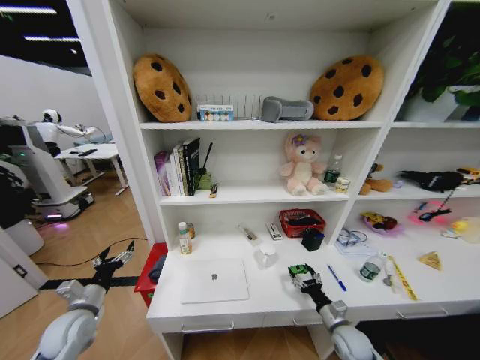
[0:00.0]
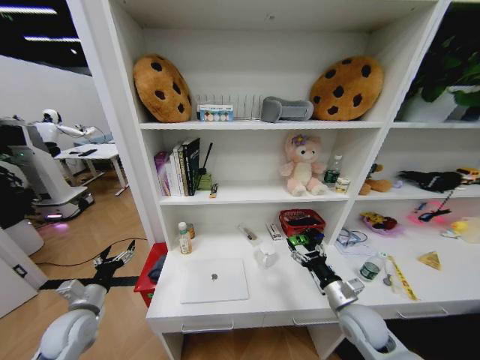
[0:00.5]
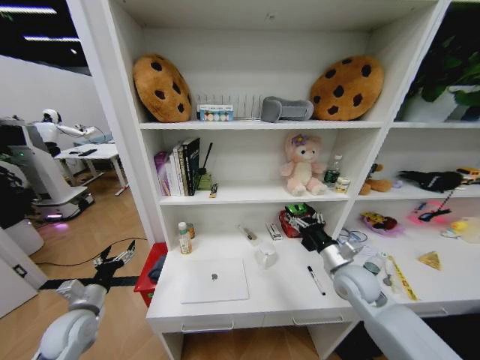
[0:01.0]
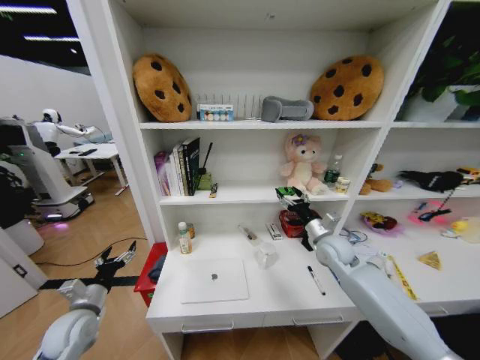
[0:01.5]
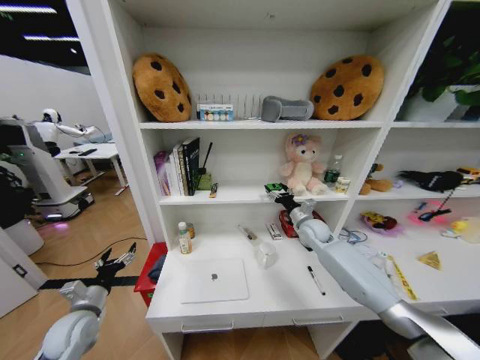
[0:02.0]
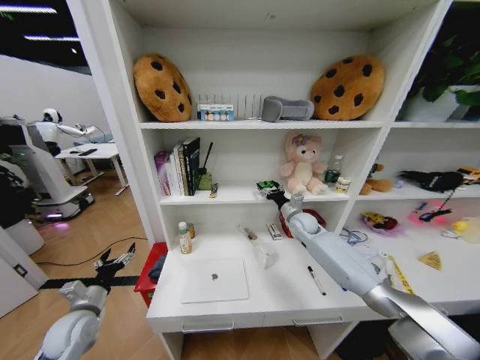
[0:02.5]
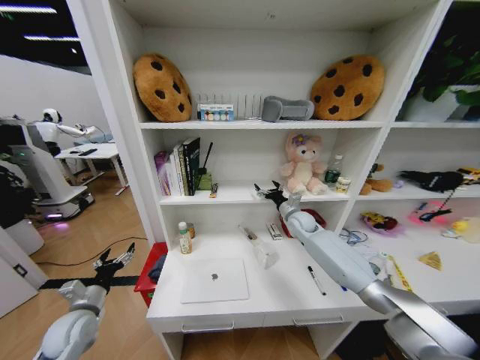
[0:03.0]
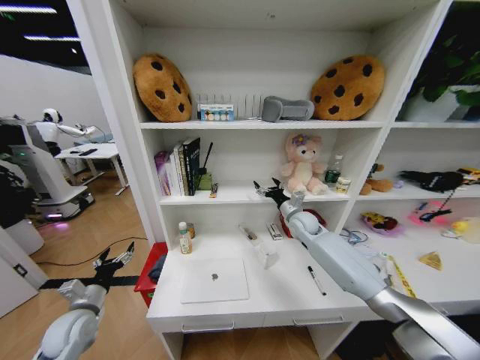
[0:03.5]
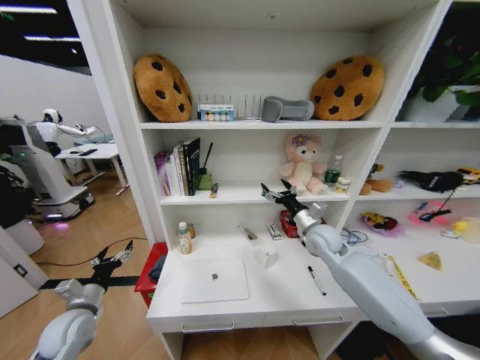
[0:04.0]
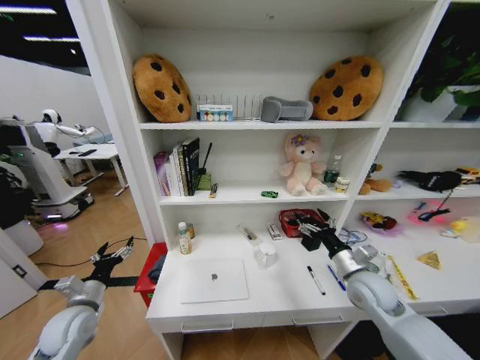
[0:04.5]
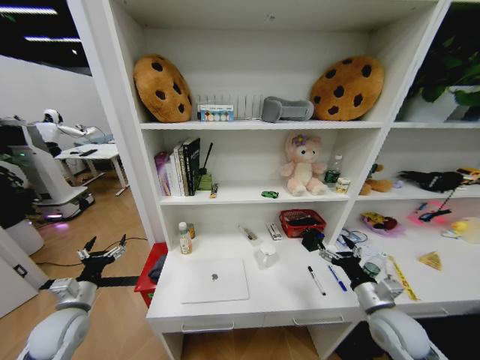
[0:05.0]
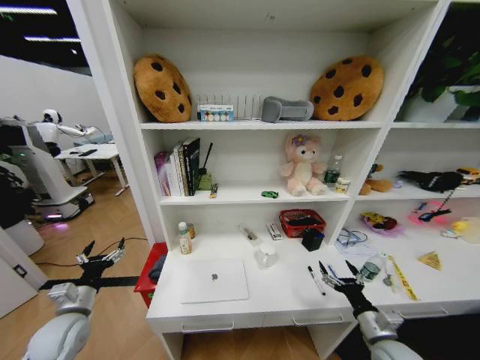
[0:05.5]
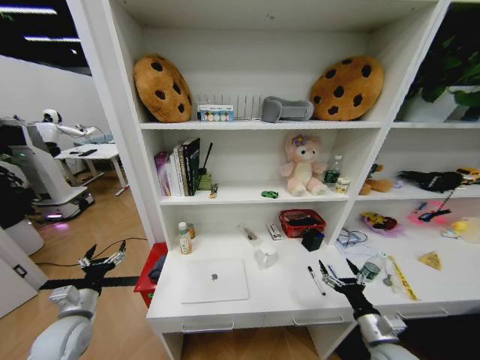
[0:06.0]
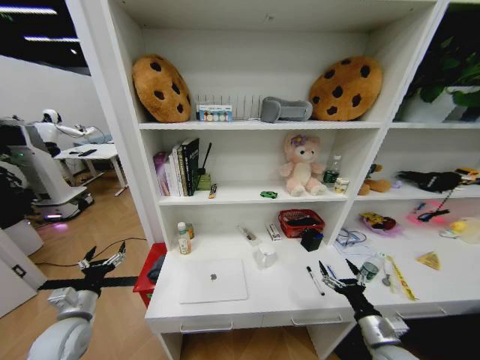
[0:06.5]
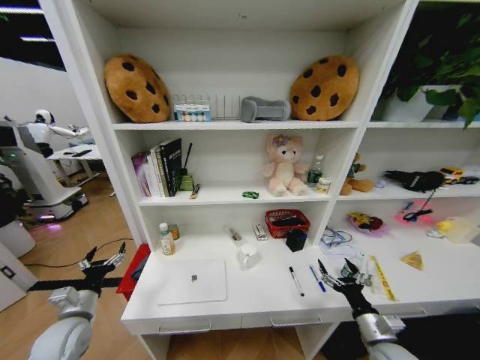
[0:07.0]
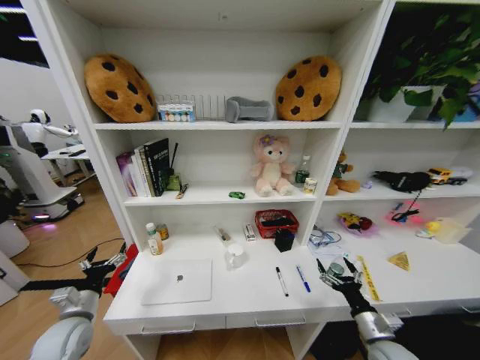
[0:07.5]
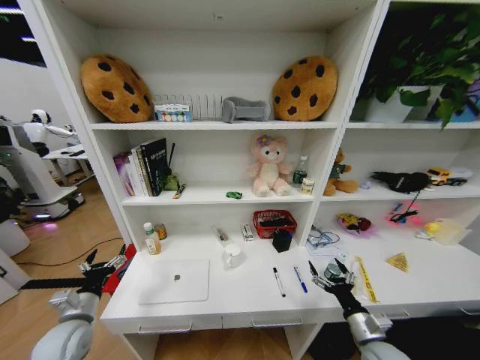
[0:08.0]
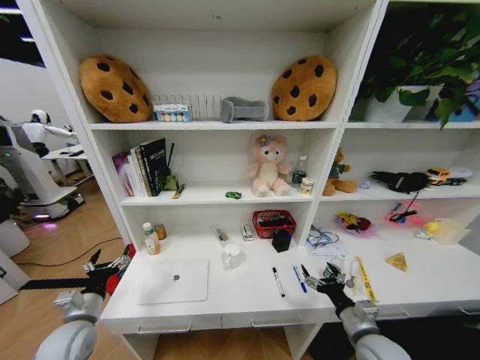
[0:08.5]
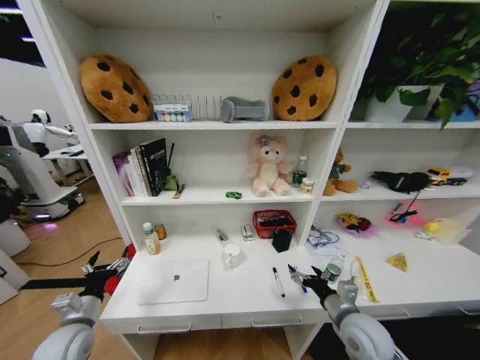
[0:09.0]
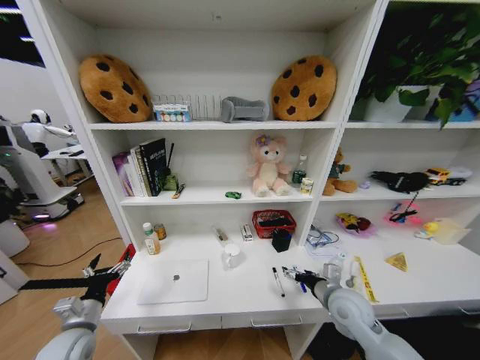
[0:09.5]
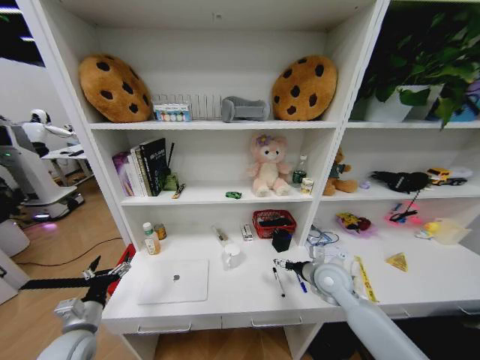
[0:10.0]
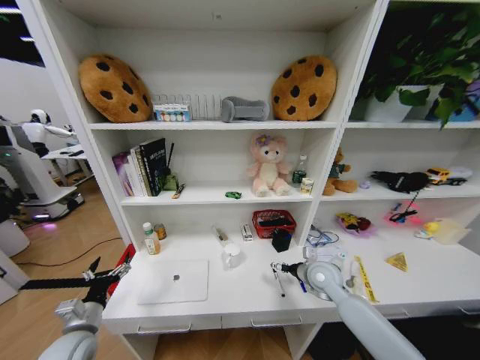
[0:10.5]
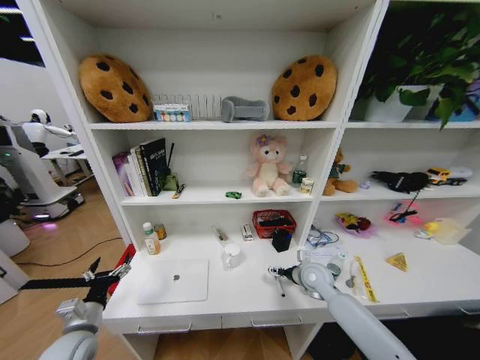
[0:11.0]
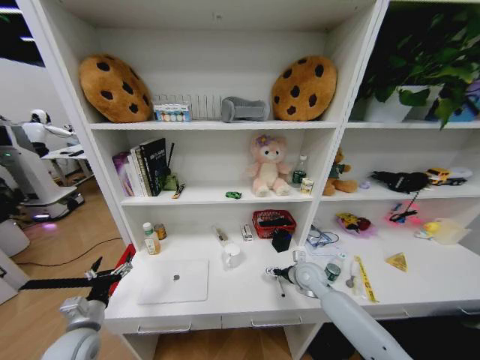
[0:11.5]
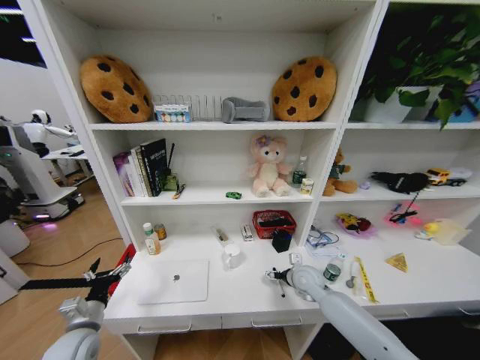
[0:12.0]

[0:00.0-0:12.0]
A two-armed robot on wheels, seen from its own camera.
Task of the whole recording: Organize the objects on the table.
0.0 to 2.0 s: The right gripper is displaced forward and upward by roughly 35 cm.
2.0 to 4.0 s: The right gripper goes some 5 cm backward.
4.0 to 6.0 s: The right gripper travels backward, downward and to the right by approximately 30 cm.
8.0 to 10.0 s: The right gripper heads forward, upward and to the left, covering approximately 20 cm.
10.0 to 12.0 s: The right gripper shifts some 10 cm downward.

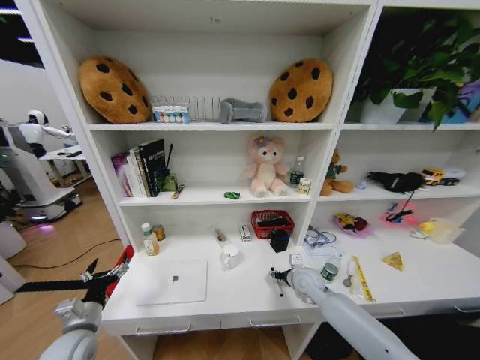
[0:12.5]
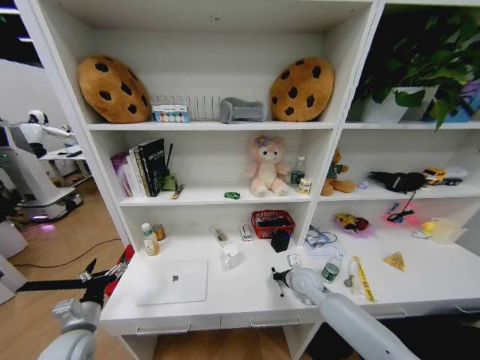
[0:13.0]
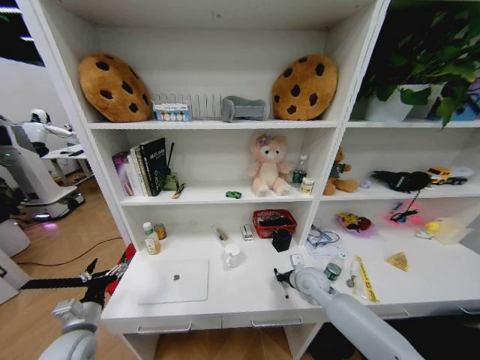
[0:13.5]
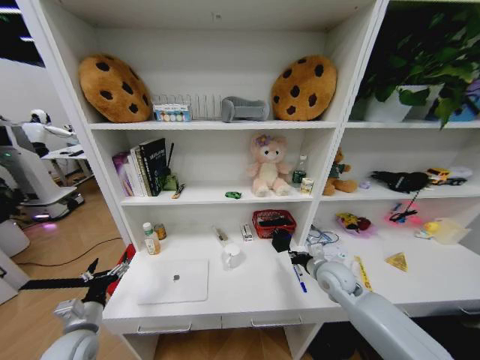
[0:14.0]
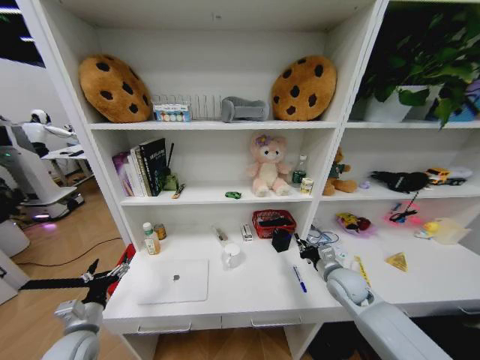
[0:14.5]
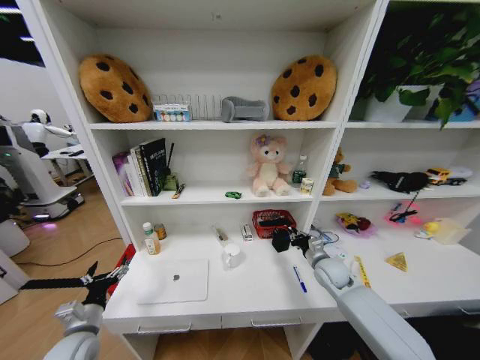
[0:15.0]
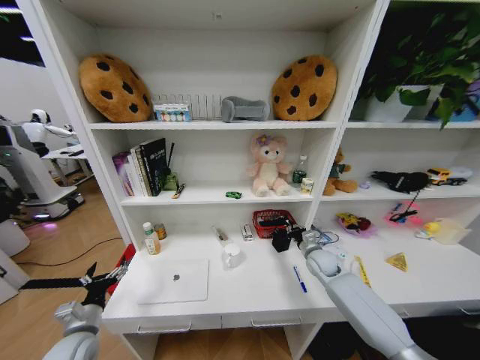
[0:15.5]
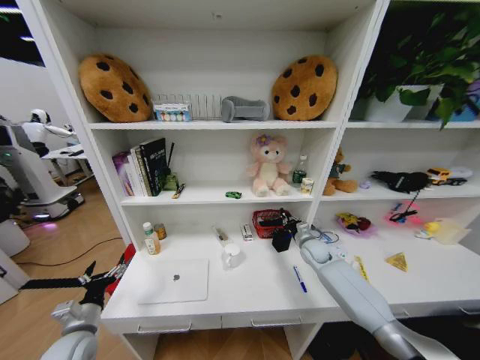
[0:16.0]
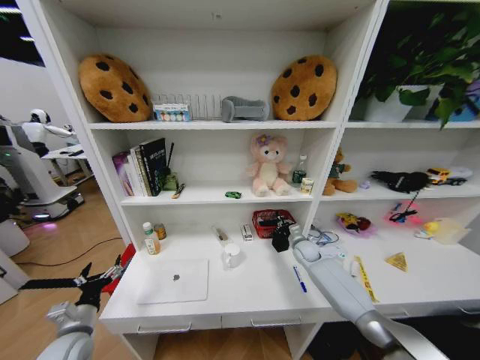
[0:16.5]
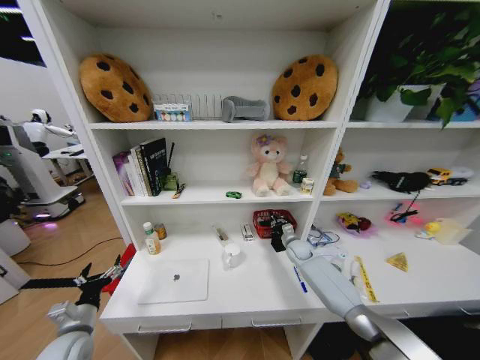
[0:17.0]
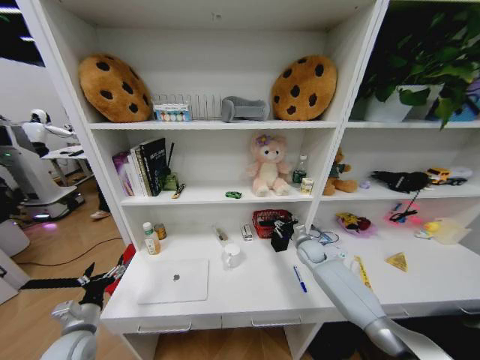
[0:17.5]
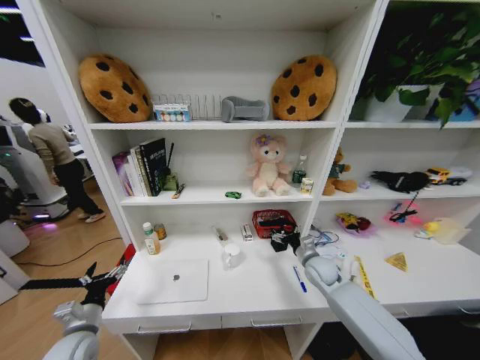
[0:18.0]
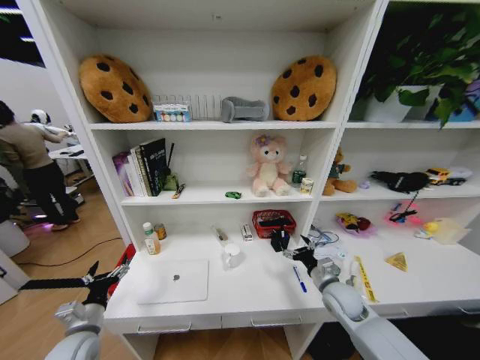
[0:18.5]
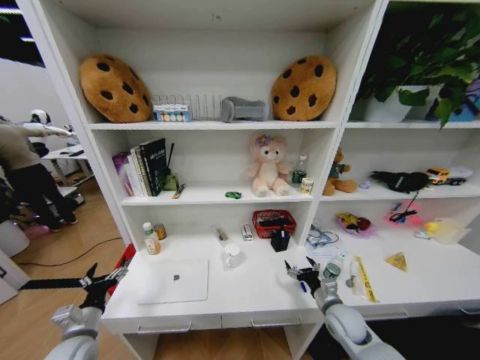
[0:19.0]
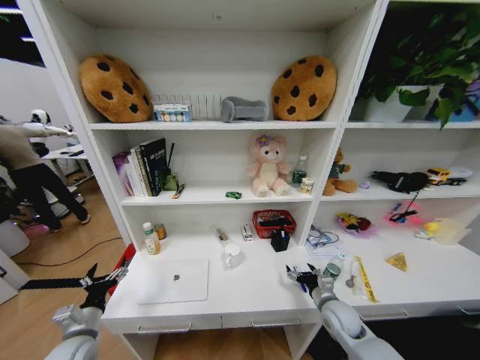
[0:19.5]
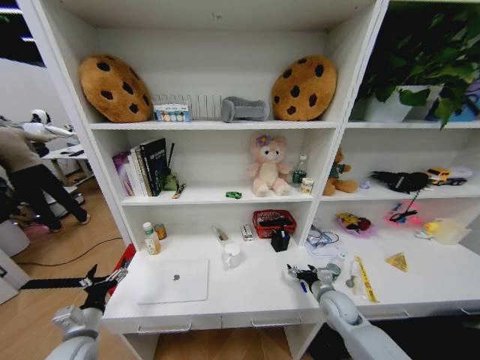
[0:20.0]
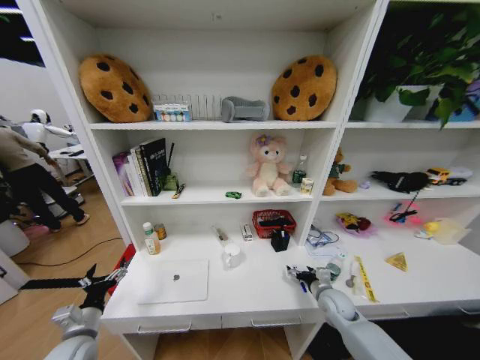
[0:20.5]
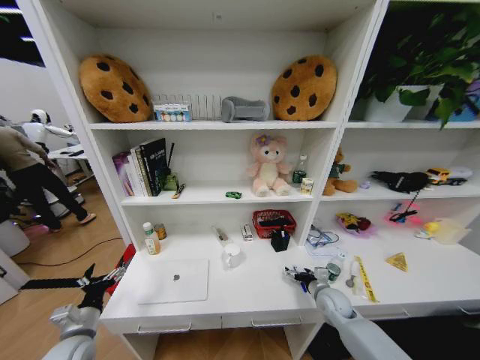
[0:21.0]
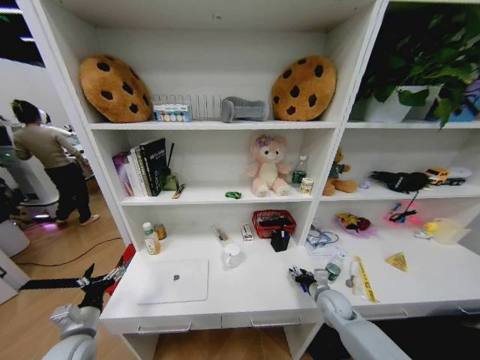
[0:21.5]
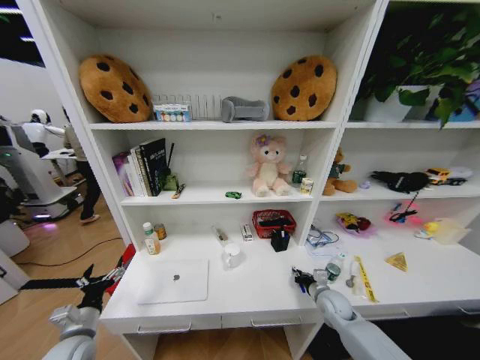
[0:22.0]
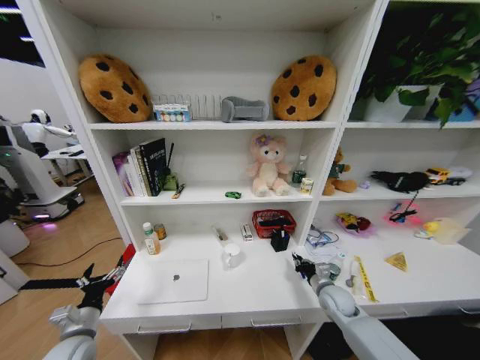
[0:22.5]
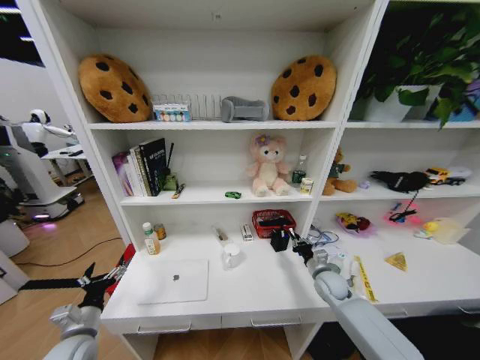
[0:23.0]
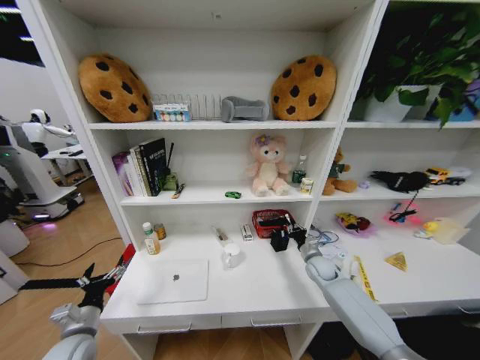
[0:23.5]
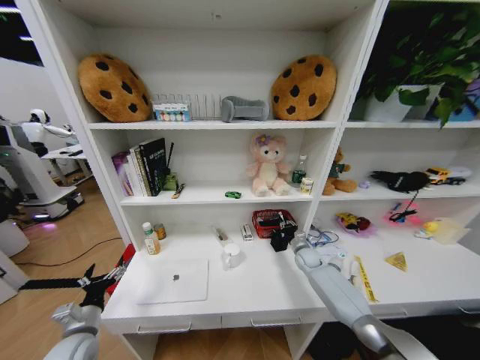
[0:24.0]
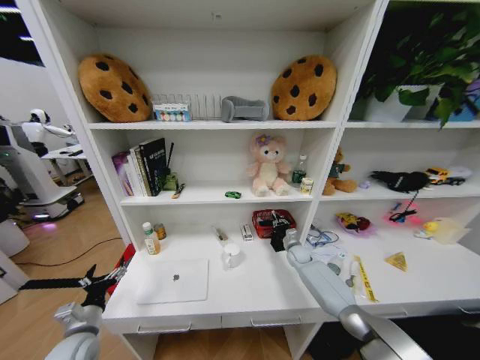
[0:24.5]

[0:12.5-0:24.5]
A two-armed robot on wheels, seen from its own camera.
Task of the whole recording: Organize the objects on the table.
12.5 to 14.5 s: The right gripper travels to the right and upward by approximately 10 cm, and closes.
14.5 to 16.5 s: The right gripper shifts roughly 20 cm forward and downward.
16.5 to 18.5 s: The right gripper shifts about 20 cm backward, and opens up.
18.5 to 20.5 s: The right gripper is displaced downward by about 5 cm.
20.5 to 22.5 s: The right gripper closes up.
22.5 to 24.5 s: The right gripper is displaced forward by roughly 20 cm.

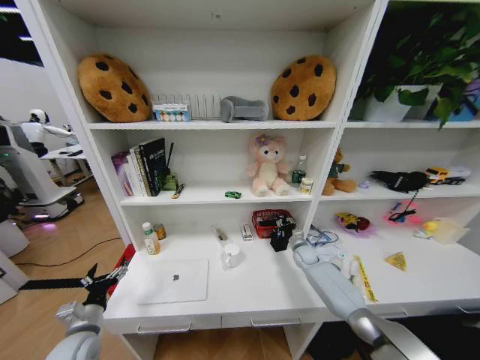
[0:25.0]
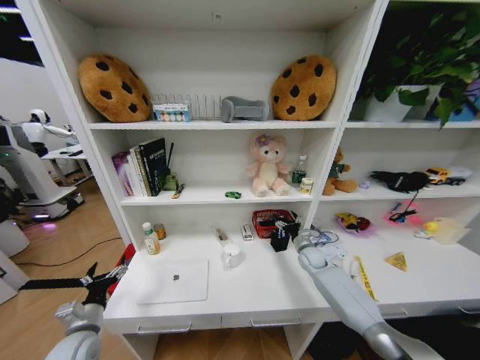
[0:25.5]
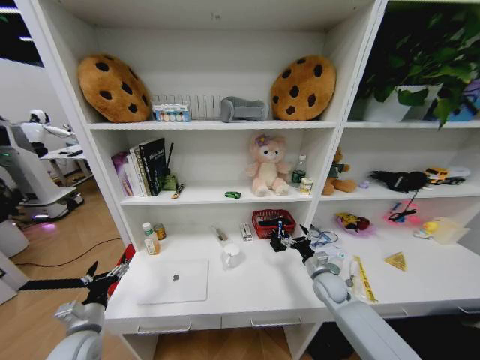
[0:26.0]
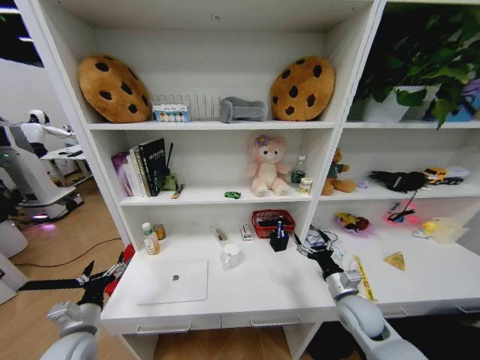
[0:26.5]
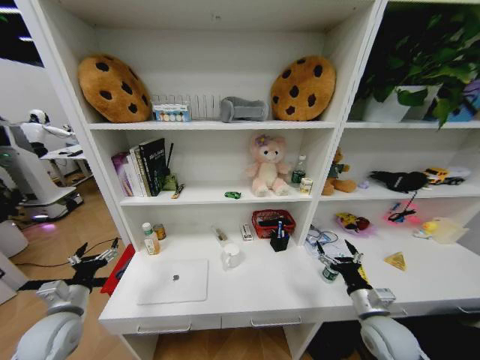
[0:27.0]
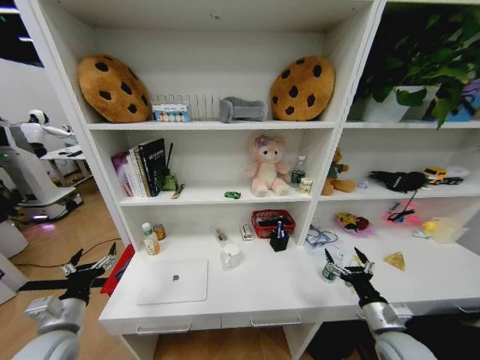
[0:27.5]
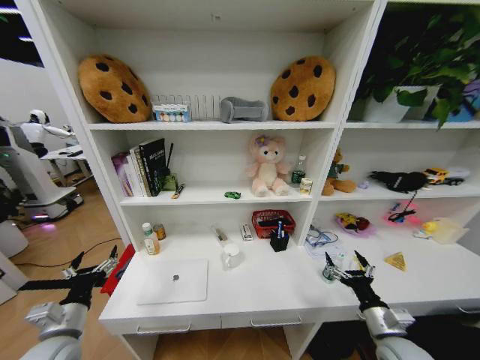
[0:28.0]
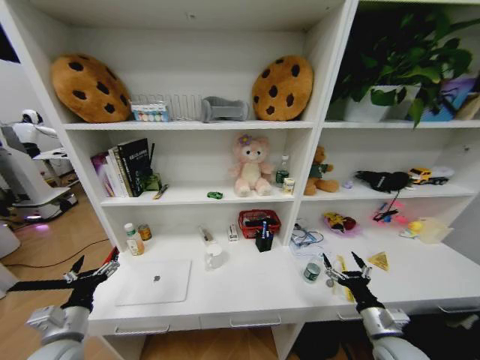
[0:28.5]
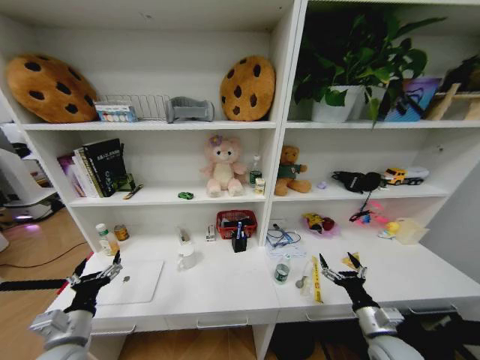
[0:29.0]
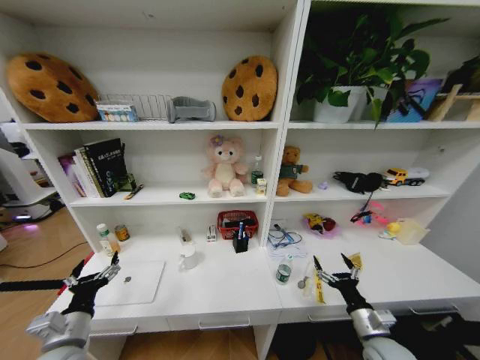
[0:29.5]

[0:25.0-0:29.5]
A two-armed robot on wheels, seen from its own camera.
Task of the whole recording: Organize the objects on the table.
25.0 to 27.0 s: The right gripper shifts about 30 cm backward, and opens; the left gripper is displaced upward by about 5 cm.
27.0 to 29.5 s: The right gripper changes place by about 5 cm, while the left gripper goes approximately 10 cm backward and to the right.
